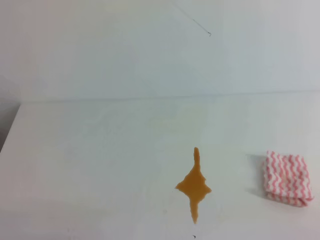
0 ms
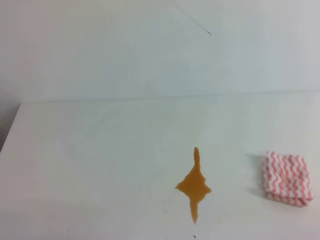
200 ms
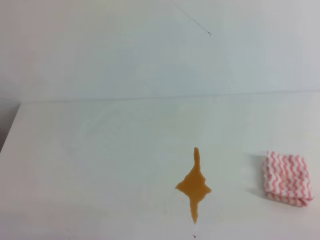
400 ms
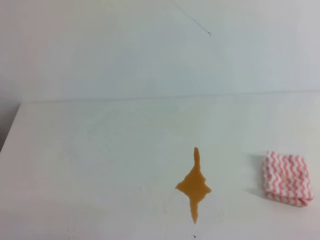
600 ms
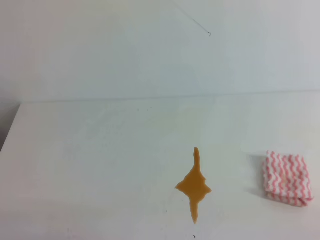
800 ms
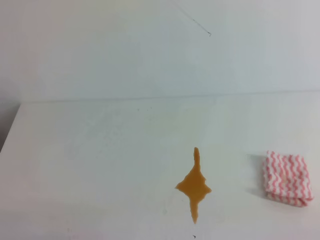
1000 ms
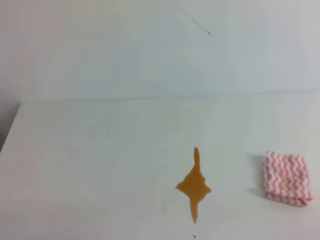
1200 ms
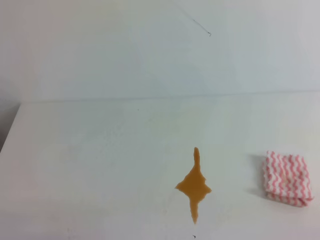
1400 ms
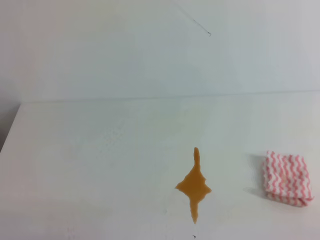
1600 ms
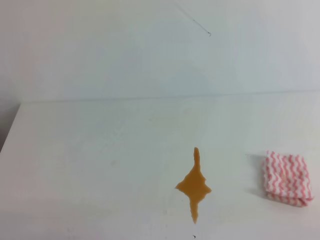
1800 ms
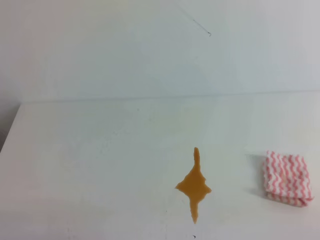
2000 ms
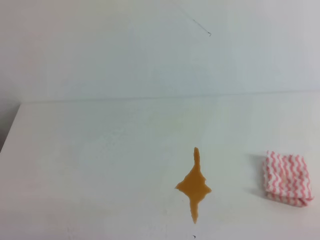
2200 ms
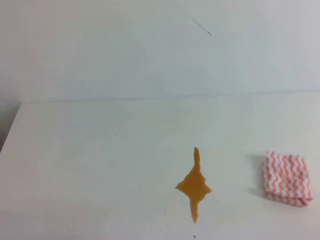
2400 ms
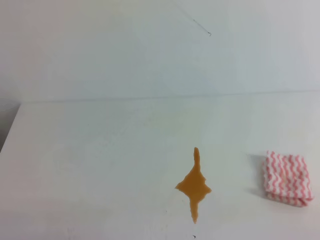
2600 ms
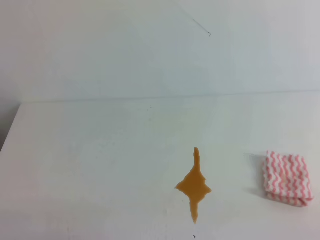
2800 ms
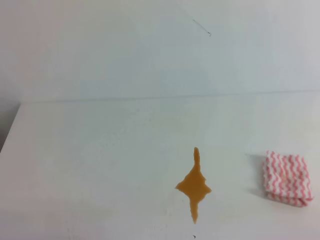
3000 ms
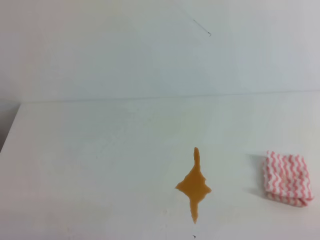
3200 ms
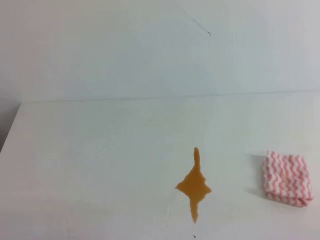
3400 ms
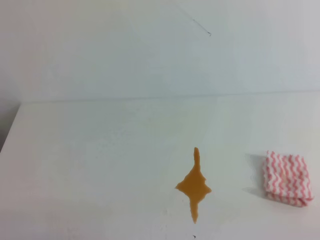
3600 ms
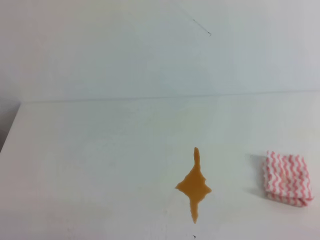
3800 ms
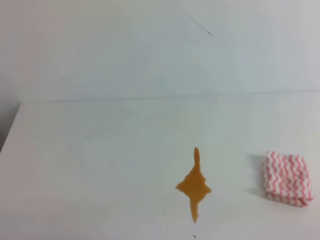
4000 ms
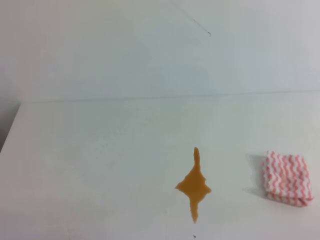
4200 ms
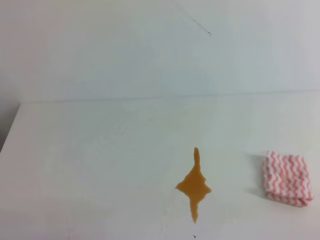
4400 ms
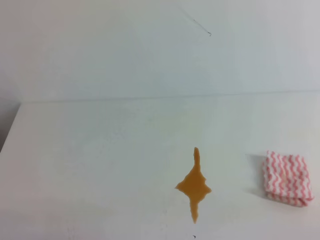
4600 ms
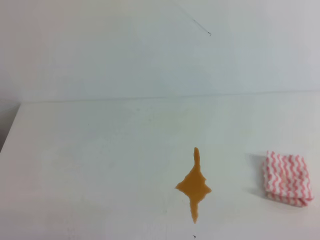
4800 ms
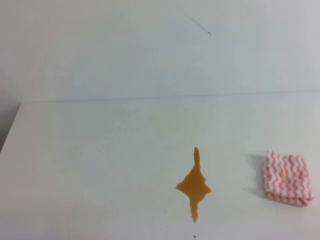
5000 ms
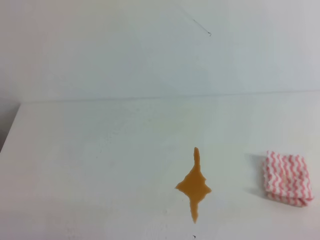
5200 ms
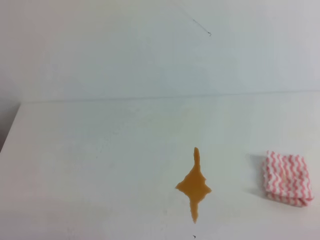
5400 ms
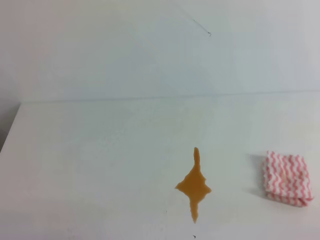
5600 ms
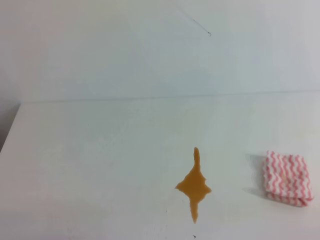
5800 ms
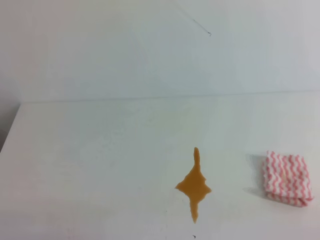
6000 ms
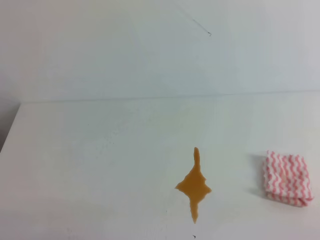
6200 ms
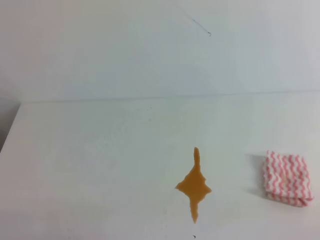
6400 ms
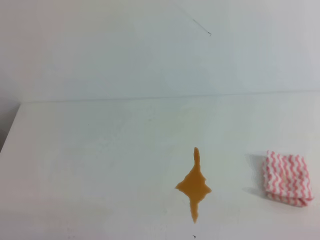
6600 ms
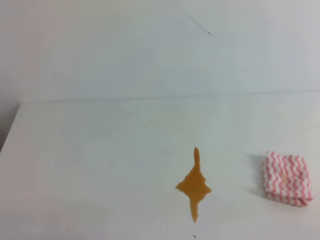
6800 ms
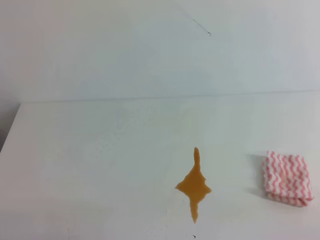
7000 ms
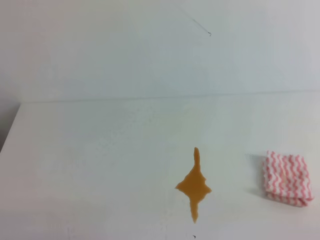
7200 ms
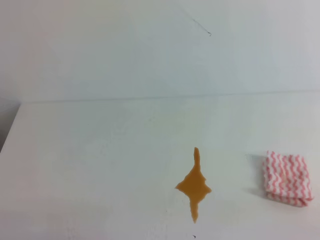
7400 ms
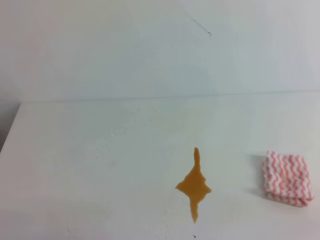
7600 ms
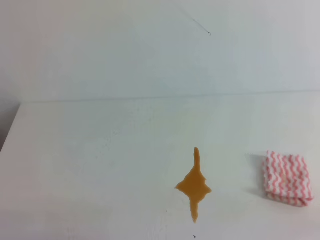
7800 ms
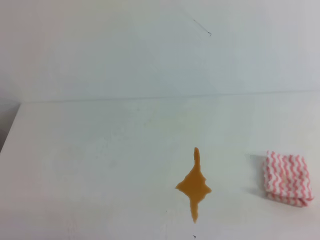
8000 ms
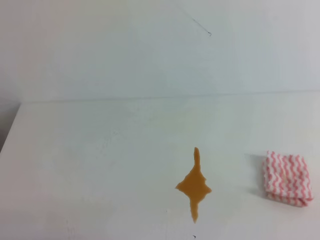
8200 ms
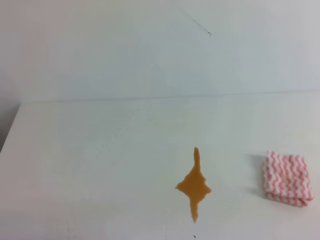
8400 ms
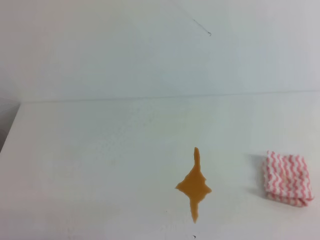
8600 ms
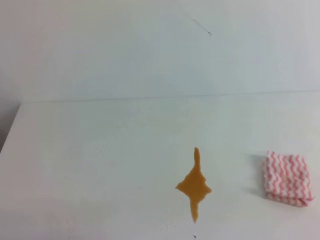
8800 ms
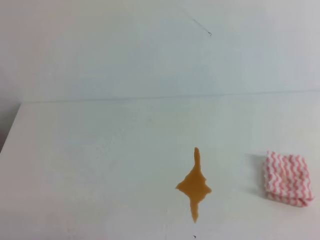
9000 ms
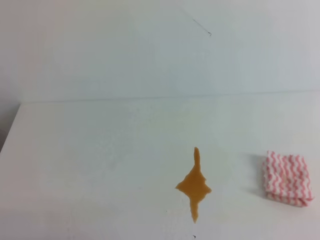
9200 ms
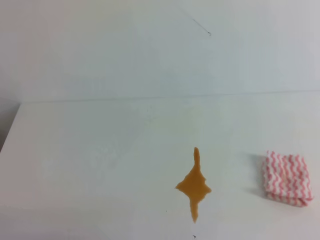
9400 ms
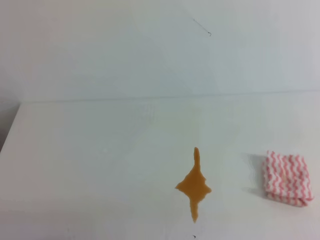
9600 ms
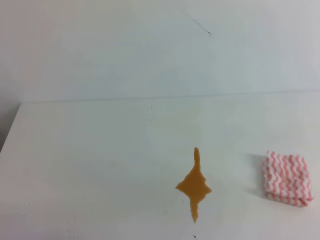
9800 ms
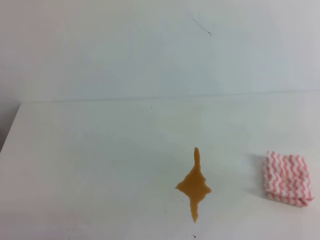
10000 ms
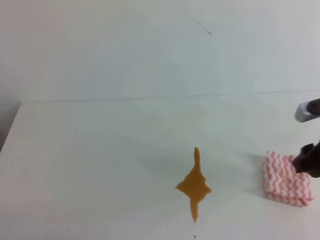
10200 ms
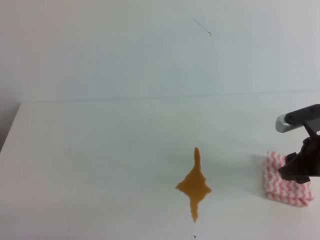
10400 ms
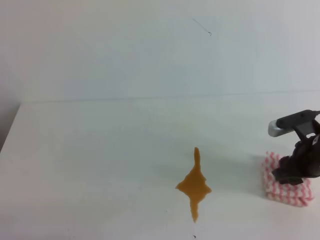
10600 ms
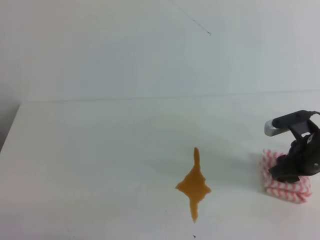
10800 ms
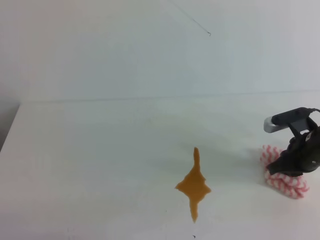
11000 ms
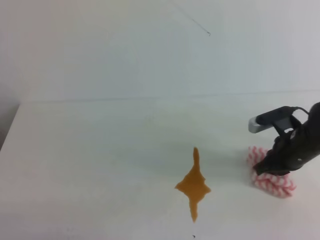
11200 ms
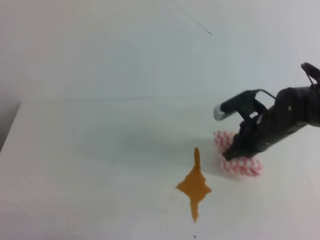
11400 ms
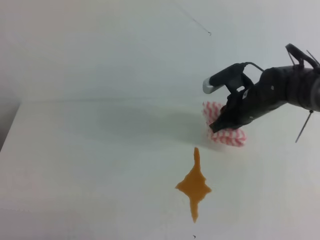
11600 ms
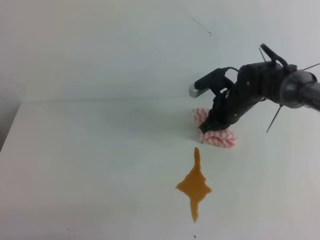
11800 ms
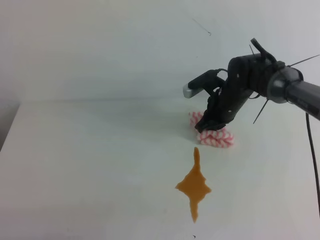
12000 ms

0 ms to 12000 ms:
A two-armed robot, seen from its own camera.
0 ms to 7600 ms: Both grippers stay put.
9000 ms to 10400 ms: The right gripper travels forward by approximately 25 cm, and opens up.
10400 ms to 12000 ms: The right gripper goes some 20 cm forward and to the left, and closes its fingers.

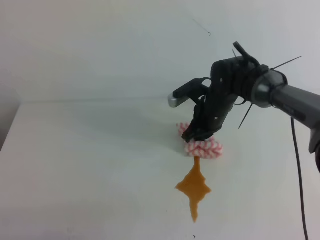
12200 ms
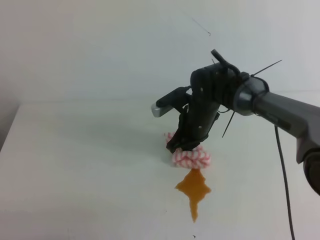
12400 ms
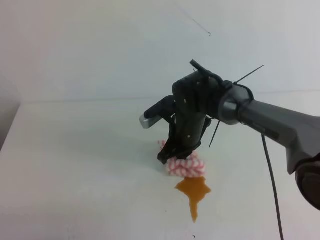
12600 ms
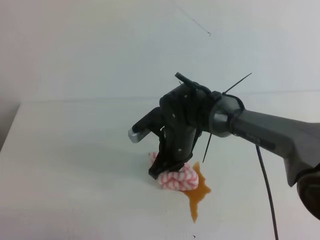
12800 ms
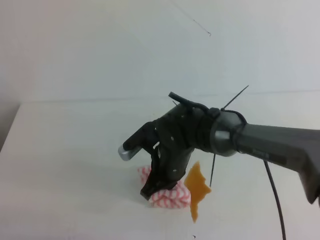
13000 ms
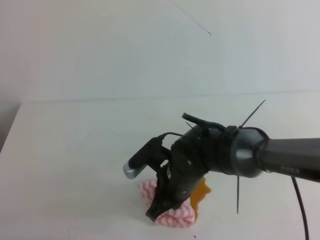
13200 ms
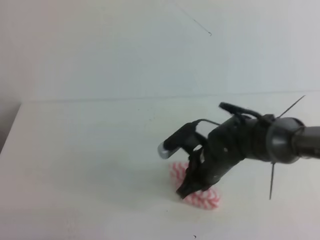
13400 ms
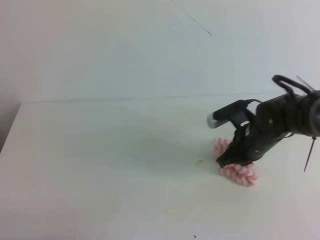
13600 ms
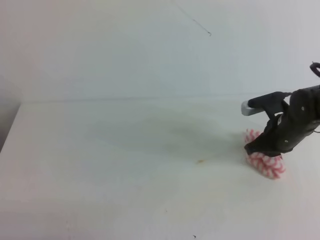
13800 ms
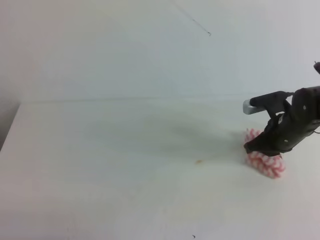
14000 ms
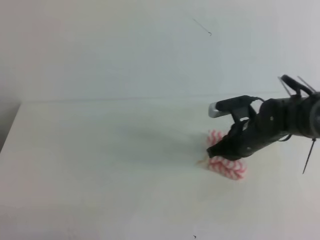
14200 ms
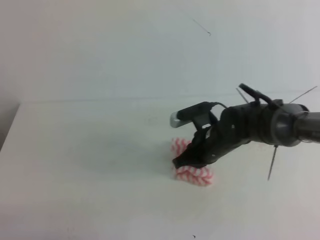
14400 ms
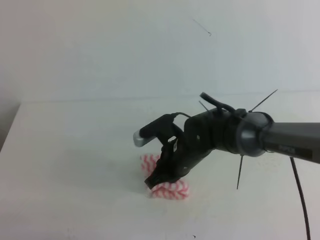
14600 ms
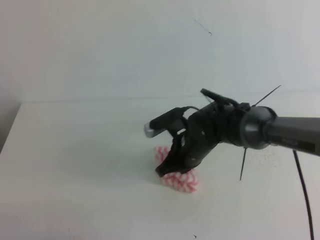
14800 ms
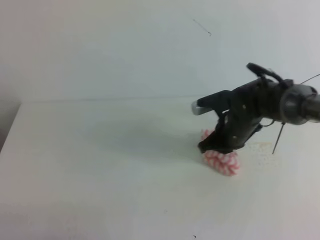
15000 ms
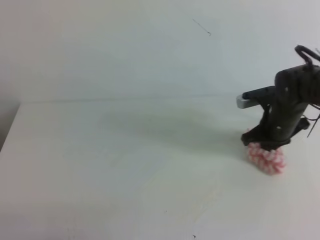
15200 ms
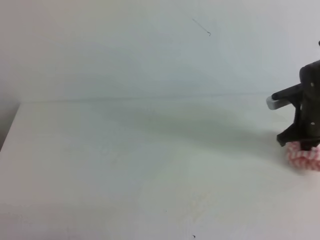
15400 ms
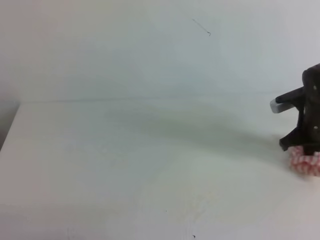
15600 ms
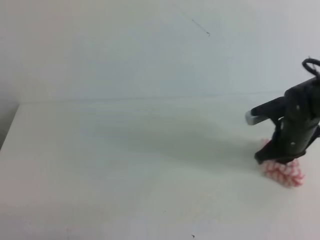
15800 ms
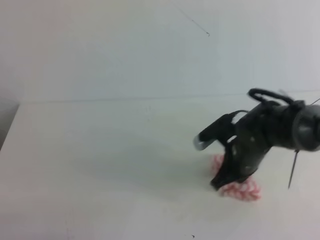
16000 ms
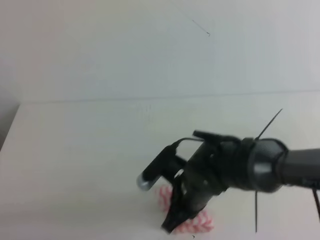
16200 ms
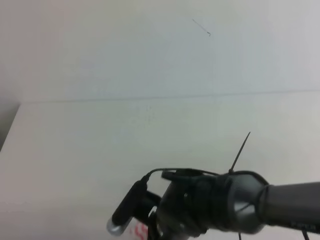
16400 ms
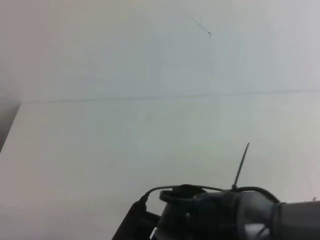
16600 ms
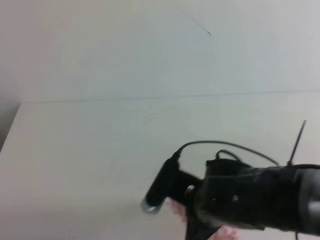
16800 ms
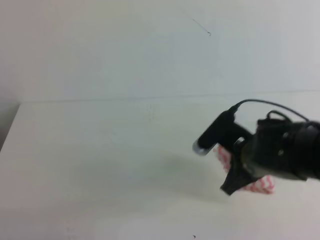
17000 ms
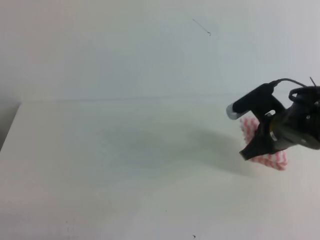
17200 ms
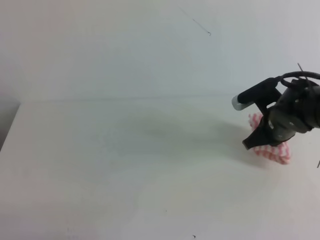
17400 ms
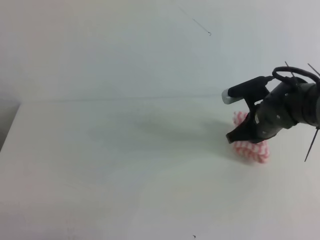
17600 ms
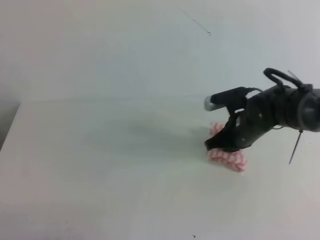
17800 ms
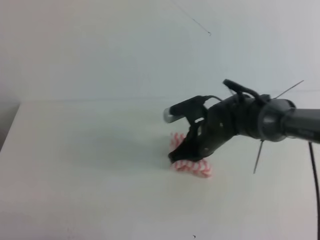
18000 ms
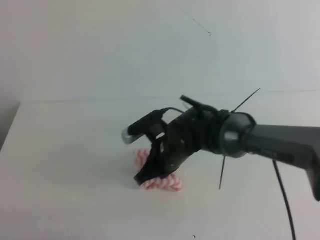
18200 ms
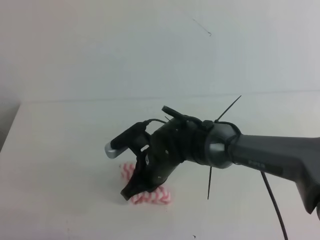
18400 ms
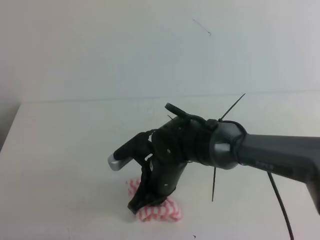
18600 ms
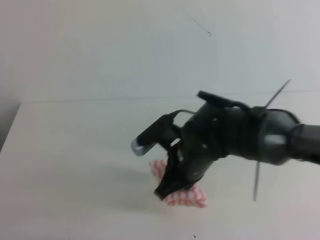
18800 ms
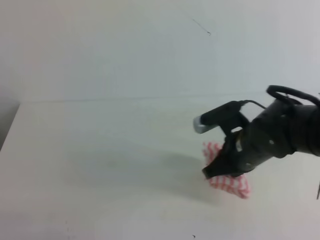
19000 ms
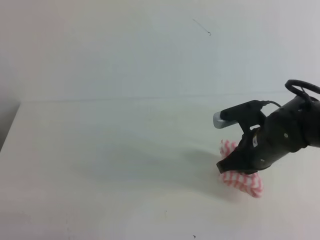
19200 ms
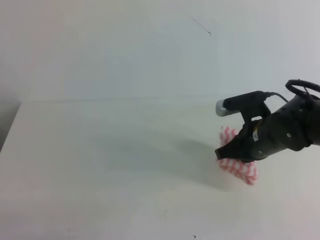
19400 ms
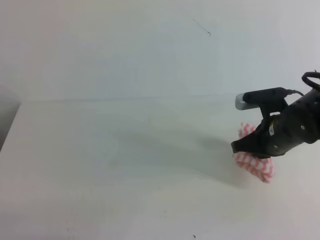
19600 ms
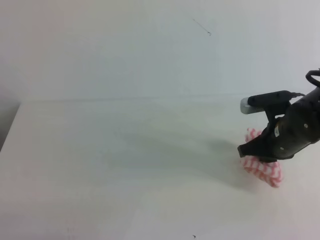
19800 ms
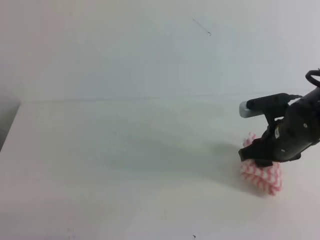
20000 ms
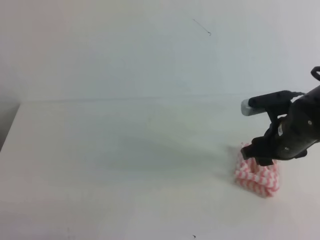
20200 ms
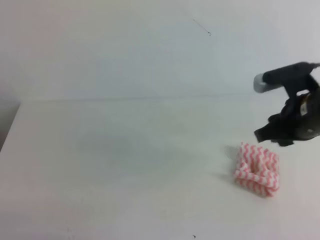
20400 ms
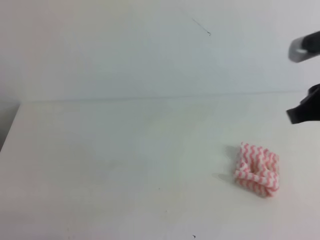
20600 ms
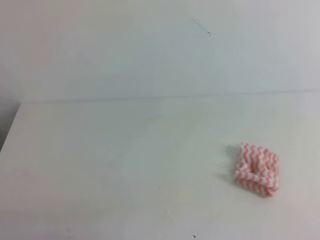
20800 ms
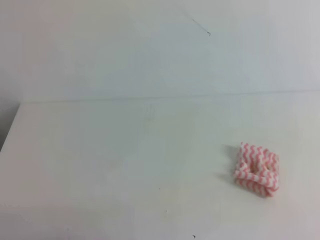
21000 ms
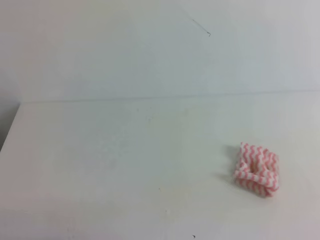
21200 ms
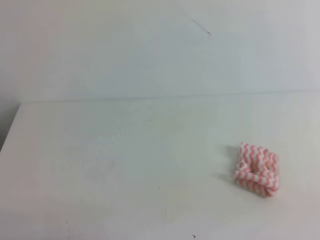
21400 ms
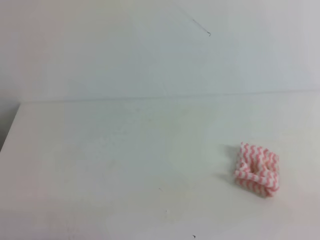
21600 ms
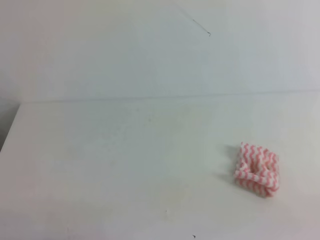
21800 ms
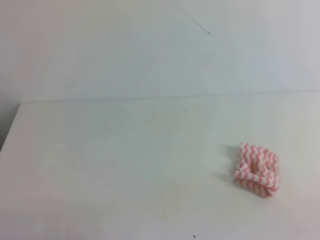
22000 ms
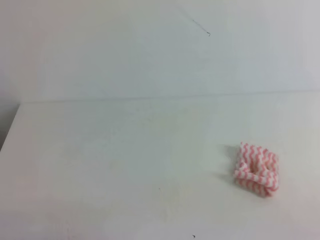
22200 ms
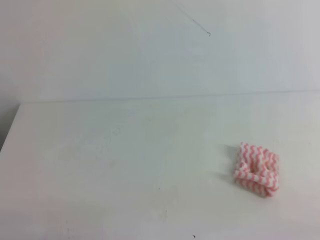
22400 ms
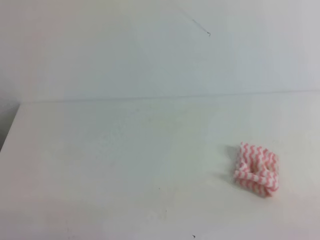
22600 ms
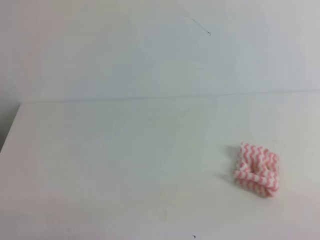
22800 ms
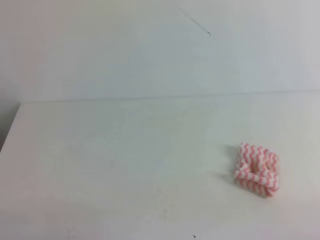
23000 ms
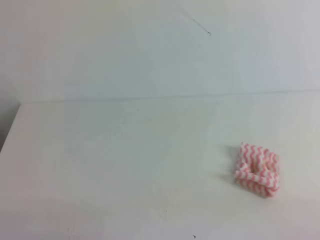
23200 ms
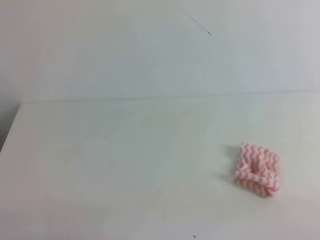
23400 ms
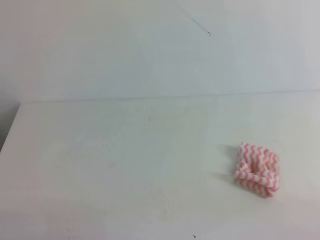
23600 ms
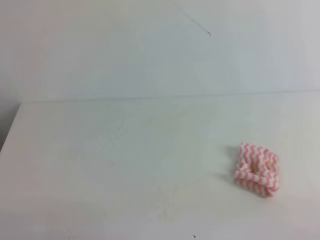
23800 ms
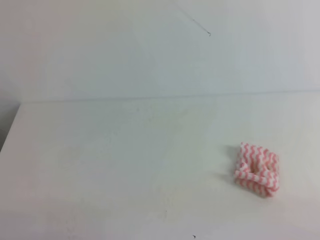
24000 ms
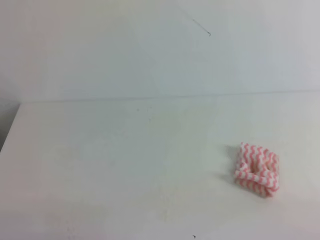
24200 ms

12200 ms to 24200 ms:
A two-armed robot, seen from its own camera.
12200 ms to 13800 ms: The right gripper heads to the right and backward, covering about 15 cm.
13800 ms to 15200 ms: The right gripper moves approximately 15 cm to the left and comes back.
15200 ms to 16600 ms: The right gripper moves backward and to the left, approximately 30 cm.
16600 ms to 18200 ms: The right gripper travels forward by about 15 cm.
18200 ms to 19800 ms: The right gripper moves to the right, approximately 15 cm.
19800 ms to 21200 ms: The right gripper goes some 30 cm backward, upward and to the right, and opens, then closes again.
